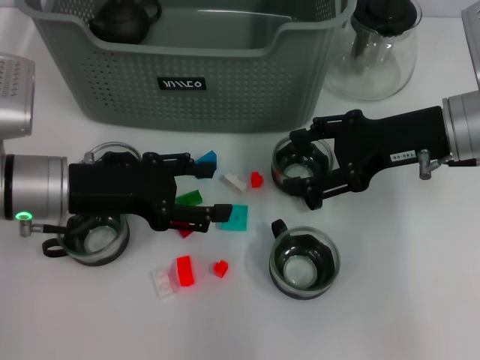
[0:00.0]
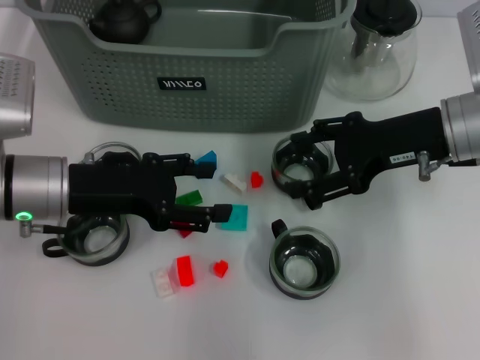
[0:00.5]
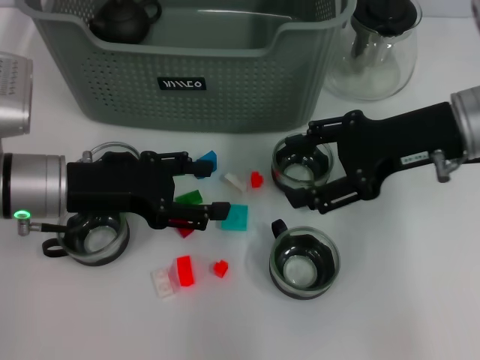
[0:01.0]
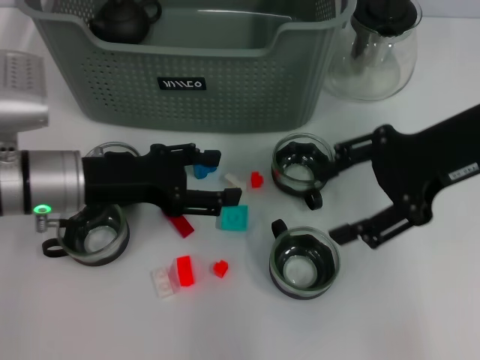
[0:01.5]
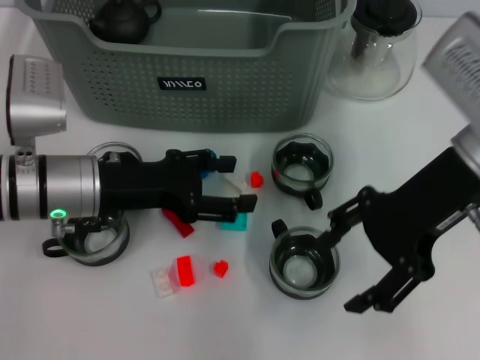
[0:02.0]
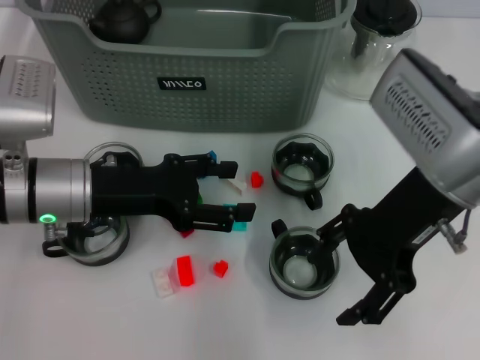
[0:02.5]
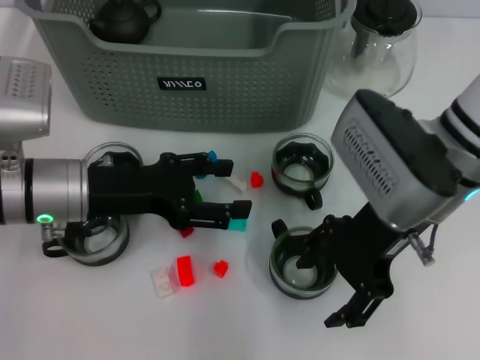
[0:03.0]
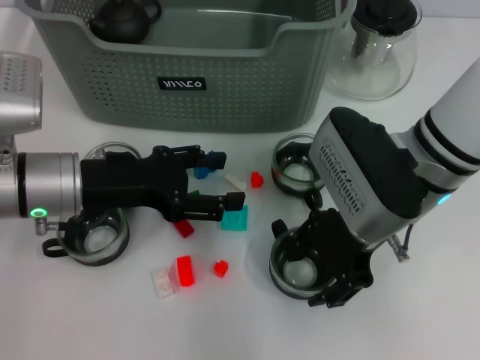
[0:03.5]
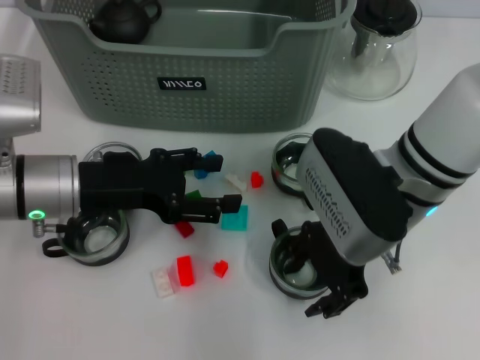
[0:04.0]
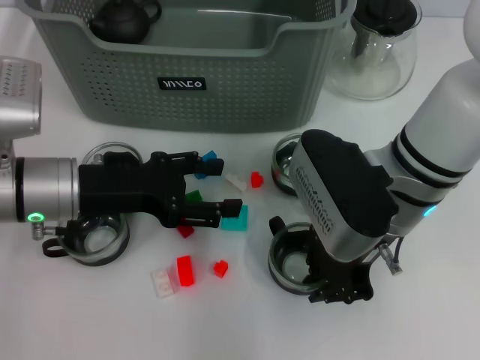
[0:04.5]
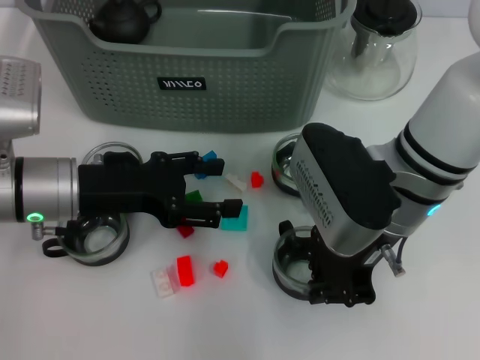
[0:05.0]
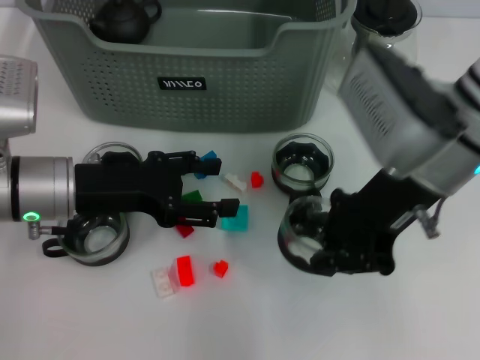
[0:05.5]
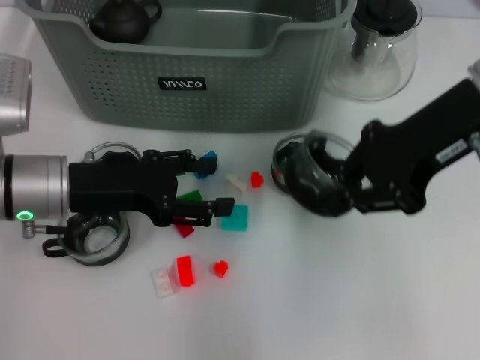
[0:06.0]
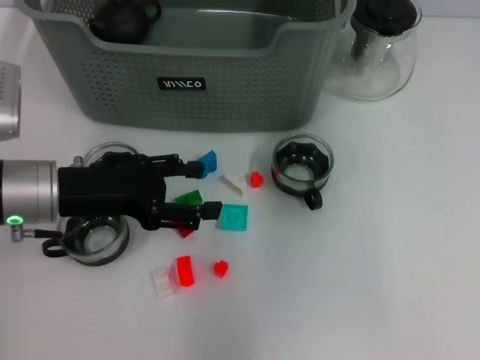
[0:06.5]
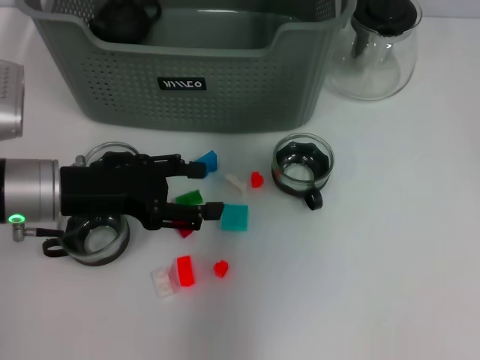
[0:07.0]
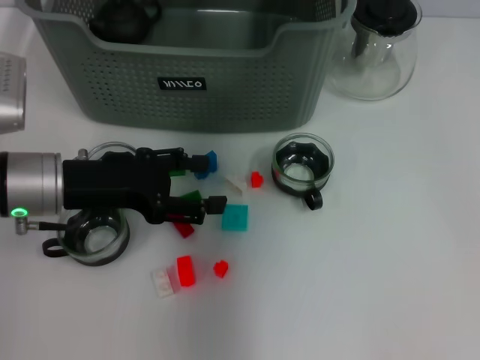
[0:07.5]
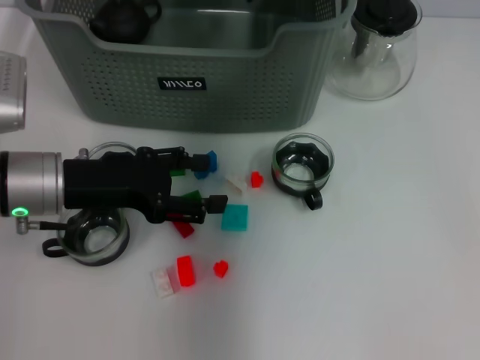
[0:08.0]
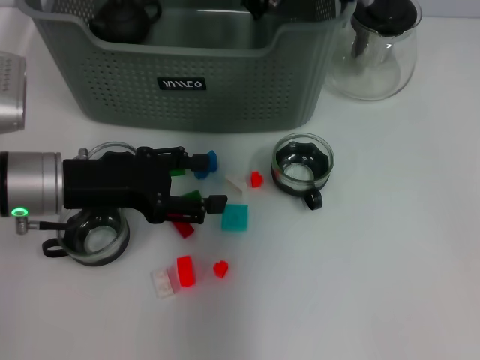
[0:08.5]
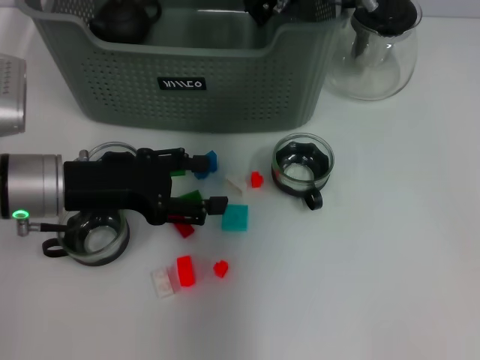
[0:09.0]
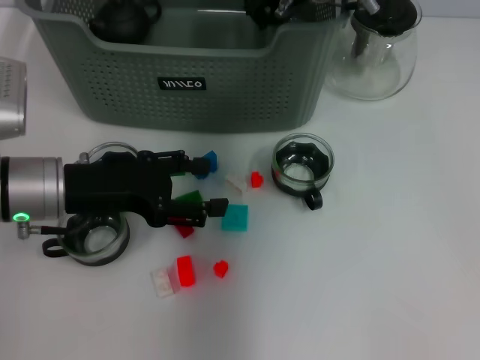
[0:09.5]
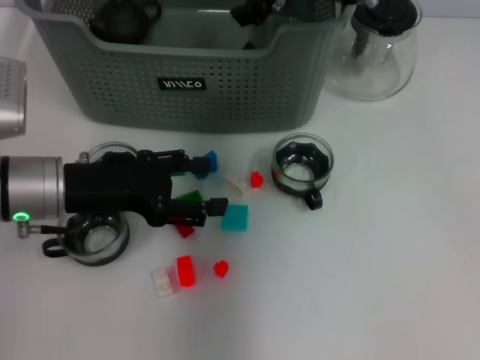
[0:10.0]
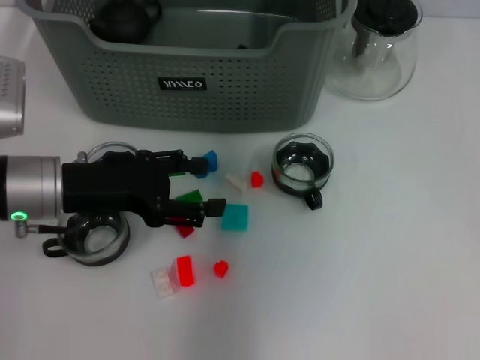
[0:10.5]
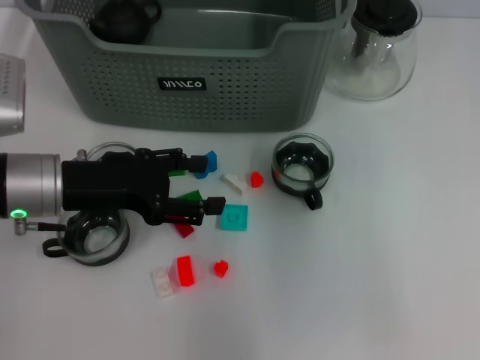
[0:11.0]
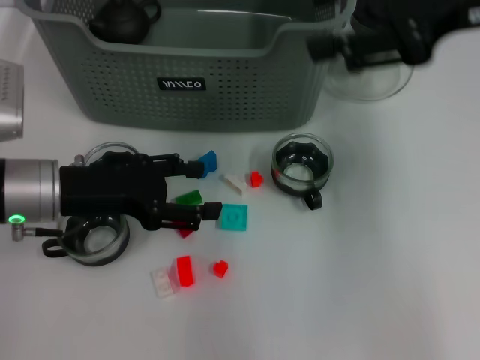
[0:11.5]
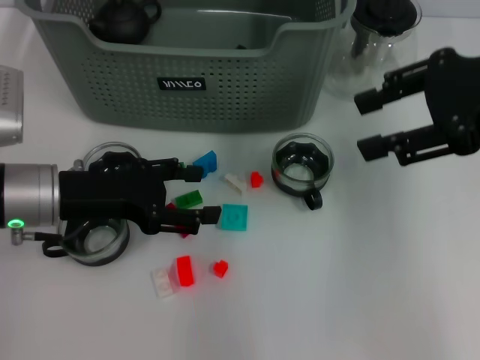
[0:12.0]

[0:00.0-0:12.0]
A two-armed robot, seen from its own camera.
Task of the whole recording: pick up the teacup on the table and place it into the storage bin, pick up the block on the table and place it into the storage bin.
Step, 0.0 to 4.5 s: Grasp the cup with right gripper.
Step, 5.0 to 10.0 s: Place the cup in the storage box with right gripper.
0.0 to 2.0 s: The right gripper is displaced upward by approximately 5 cm.
2.0 to 4.0 s: The right gripper heads to the left and downward, covering approximately 10 cm.
4.0 to 6.0 s: The right gripper goes about 10 cm upward and to the right, and closes.
6.0 to 8.0 s: The right gripper travels forward and to the left by some 20 cm.
8.0 to 10.0 s: The right gripper opens.
10.0 to 12.0 s: The right gripper is displaced to the right and backward by roughly 25 cm.

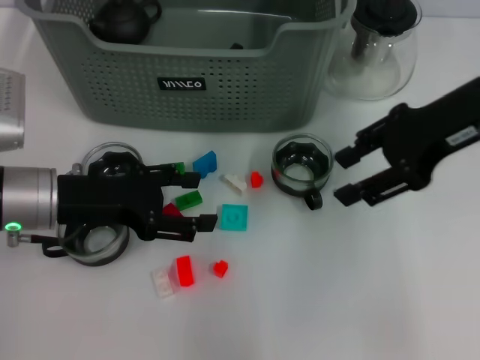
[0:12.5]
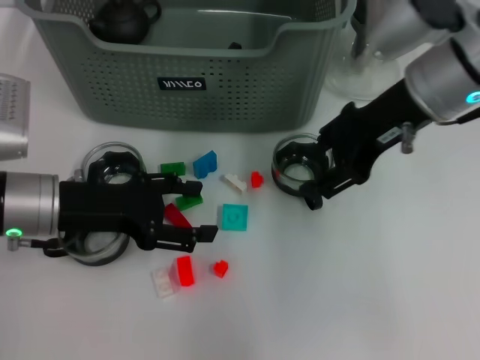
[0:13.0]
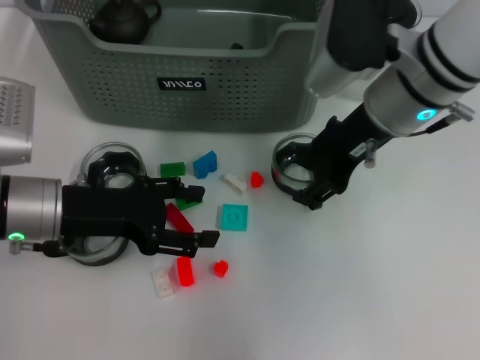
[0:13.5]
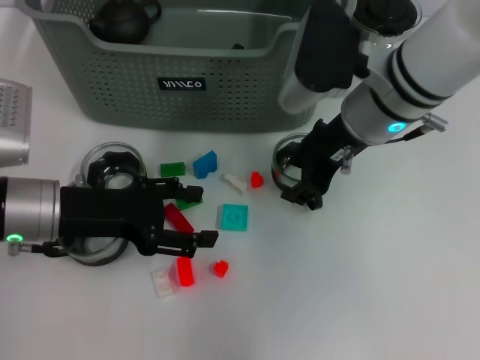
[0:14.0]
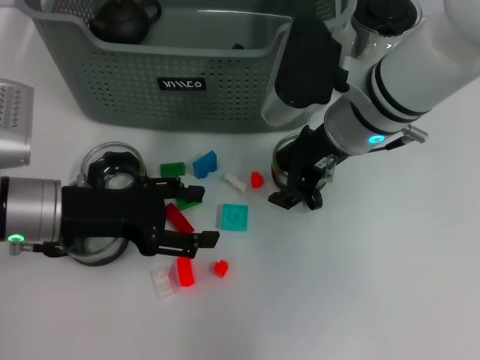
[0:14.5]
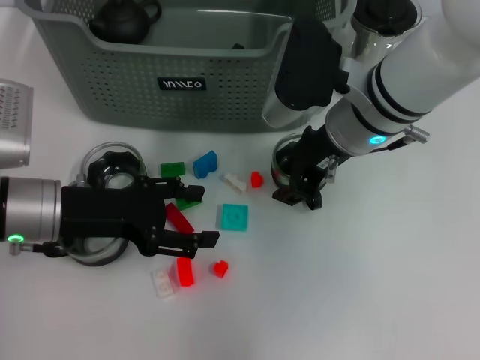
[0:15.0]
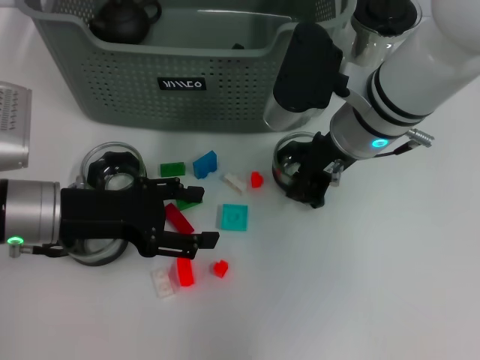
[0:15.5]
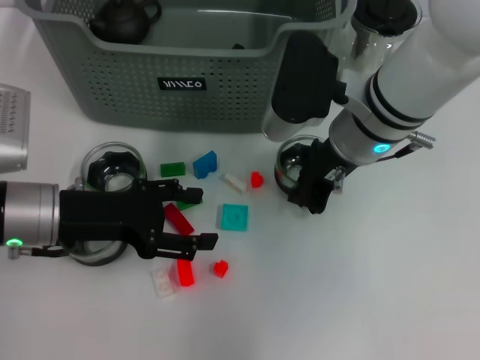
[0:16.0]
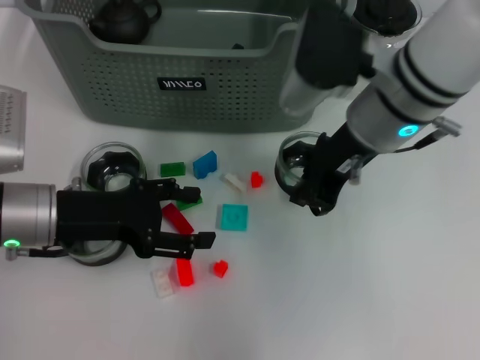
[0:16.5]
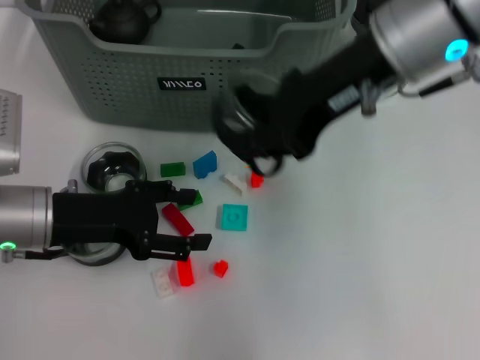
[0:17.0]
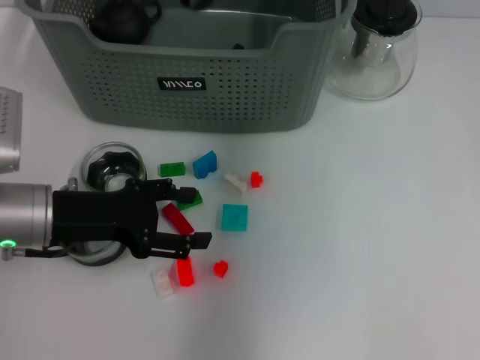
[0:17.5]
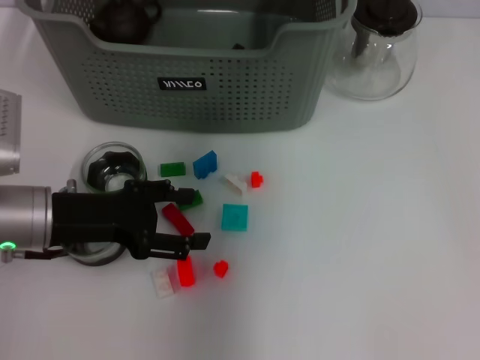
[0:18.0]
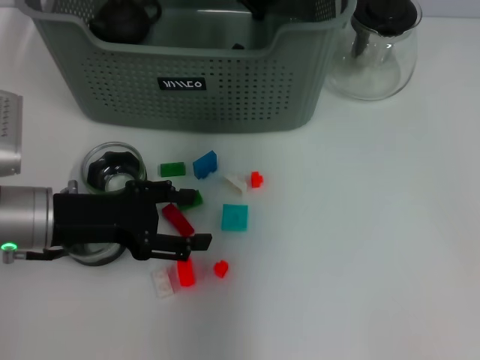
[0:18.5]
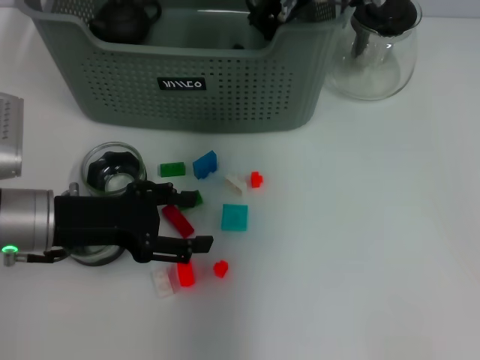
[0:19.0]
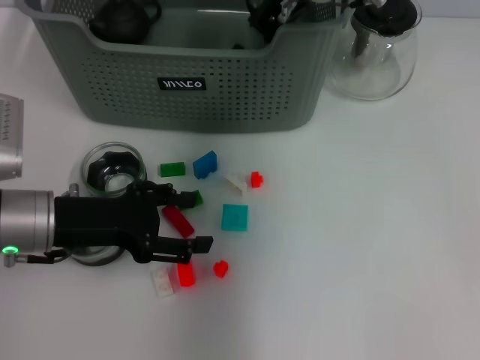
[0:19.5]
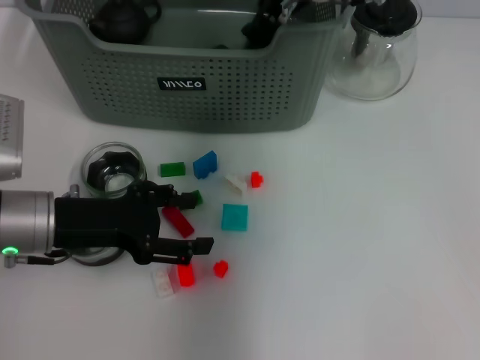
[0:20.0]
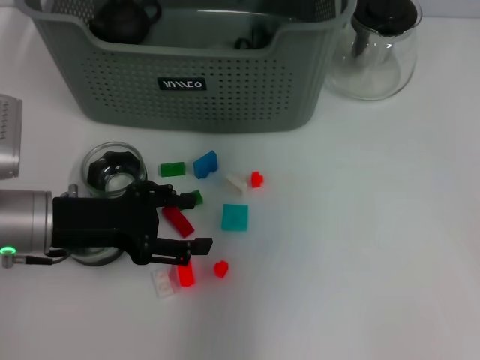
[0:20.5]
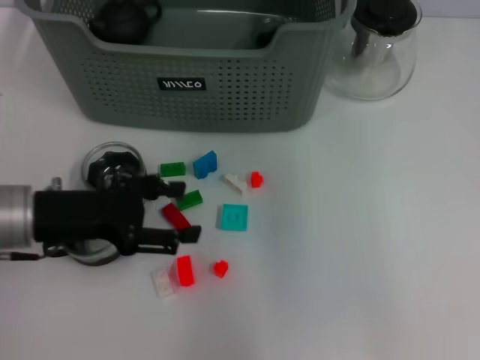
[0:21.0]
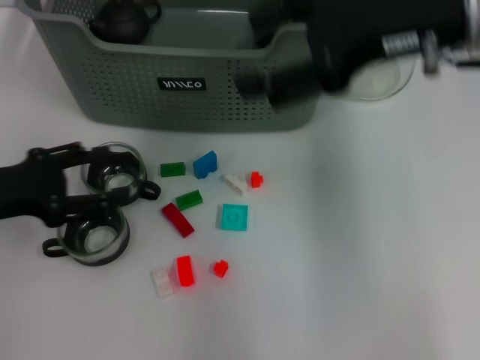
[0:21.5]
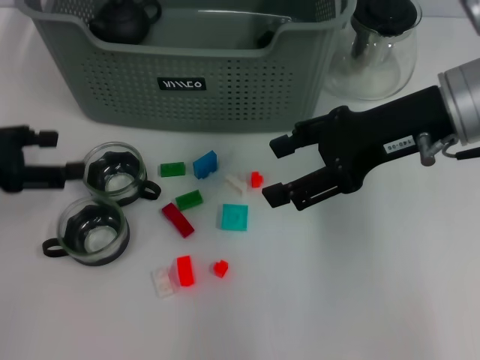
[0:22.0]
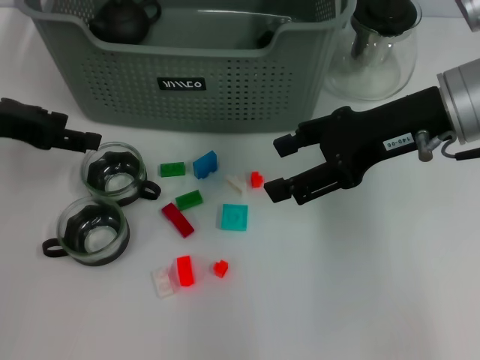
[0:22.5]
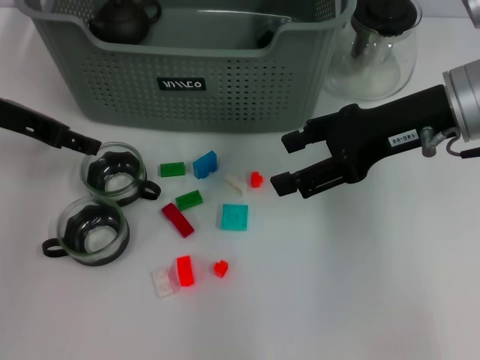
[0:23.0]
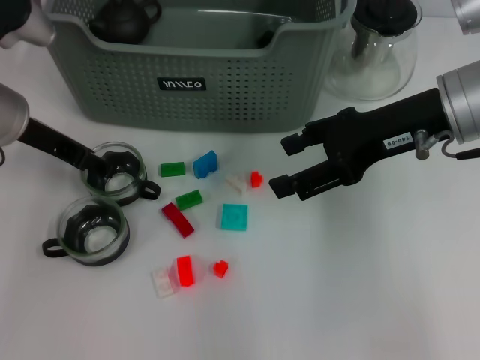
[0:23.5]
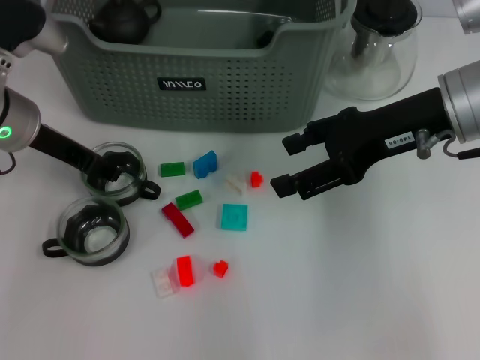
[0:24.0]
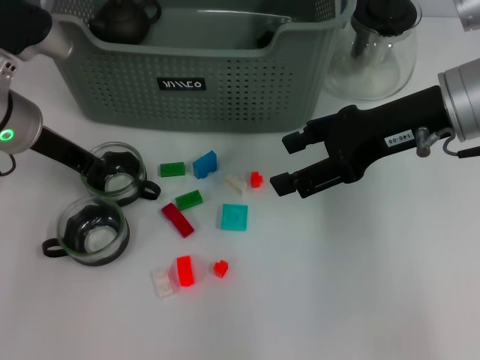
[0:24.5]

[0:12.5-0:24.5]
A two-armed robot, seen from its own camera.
Task of the whole recording: pick up the teacup on the table and place it into the storage bin, pick up the block on the table and place it into the storage bin.
Step, 12.5 to 15.5 s: Grasp the cup with right gripper.
Step, 16.0 to 20.0 s: Place the cup in the storage box with right gripper.
12.5 to 14.5 s: The right gripper goes some 15 cm to the left and downward.
14.5 to 16.5 s: The right gripper closes.
16.5 to 18.5 s: The right gripper heads forward and to the left, covering some 15 cm, and travels upward and back again, about 15 cm each way.
18.5 to 20.5 s: The right gripper opens.
20.5 to 22.5 s: The right gripper goes roughly 20 cm backward, to the right and downward, and opens up; the left gripper moves upward, to the left and forward, approximately 15 cm.
22.5 to 24.5 s: The left gripper goes about 5 cm to the right, and closes up.

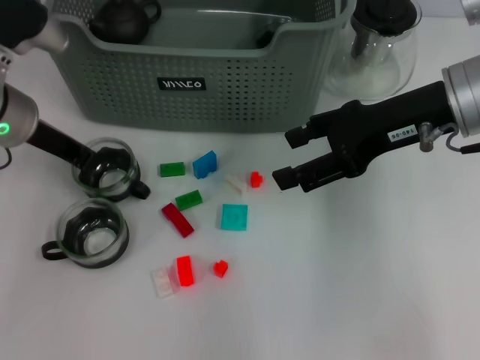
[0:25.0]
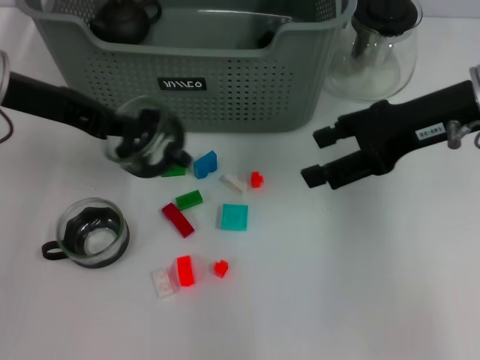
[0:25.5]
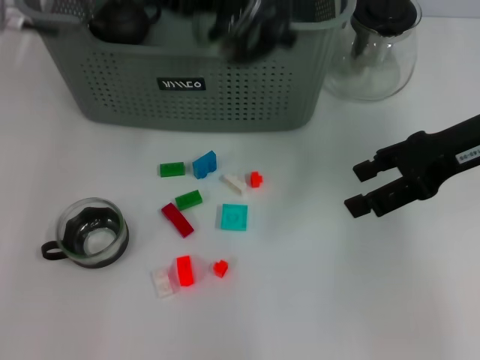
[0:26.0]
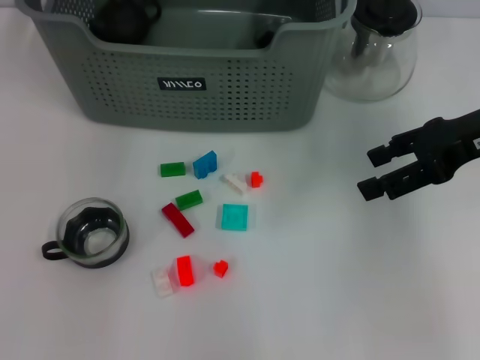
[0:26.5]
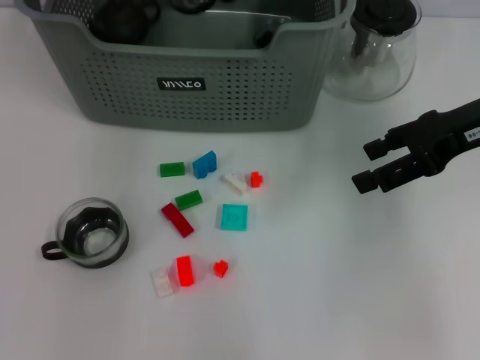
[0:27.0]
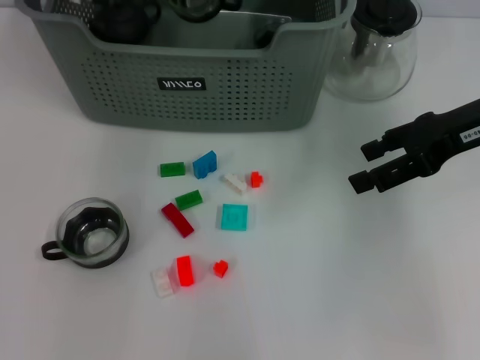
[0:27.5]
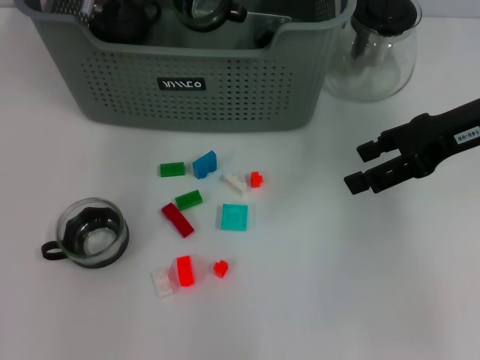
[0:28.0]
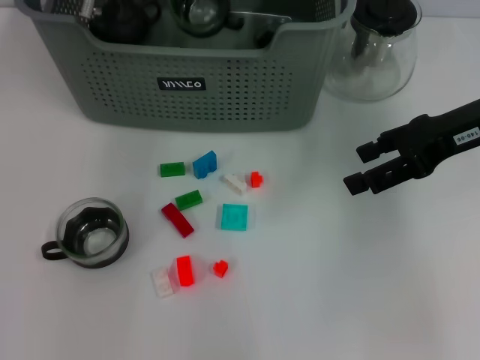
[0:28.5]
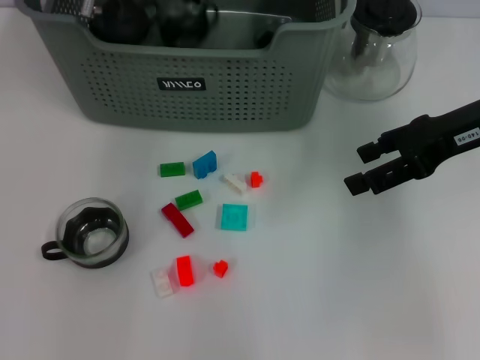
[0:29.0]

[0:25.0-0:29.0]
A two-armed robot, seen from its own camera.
Task of the whole recording: pick up the teacup on the table and place it into the storage bin, pick up the block on the table and place it into the storage bin.
25.0 to 27.0 s: The right gripper travels to the right by roughly 5 cm, while the left gripper moves forward, upward and to the right, roughly 15 cm.
27.0 to 29.0 s: The left gripper opens up.
